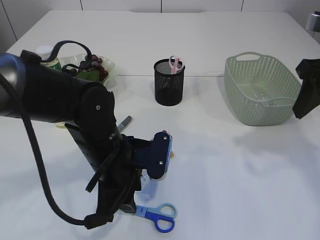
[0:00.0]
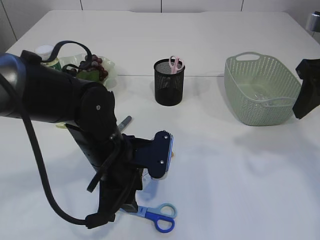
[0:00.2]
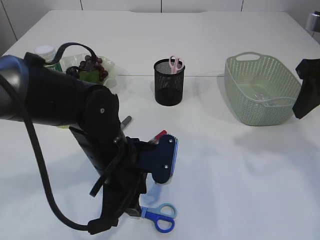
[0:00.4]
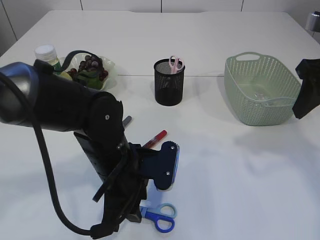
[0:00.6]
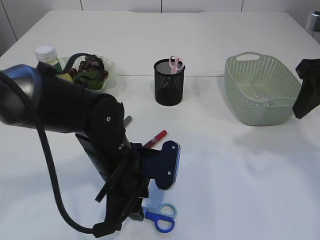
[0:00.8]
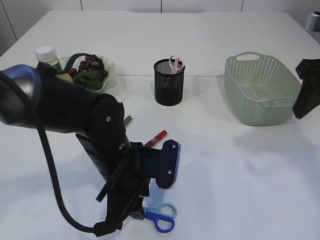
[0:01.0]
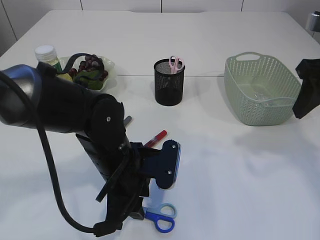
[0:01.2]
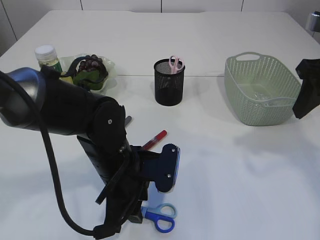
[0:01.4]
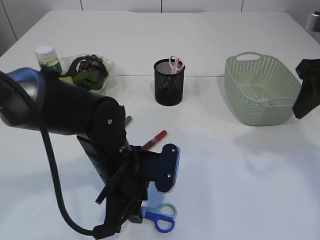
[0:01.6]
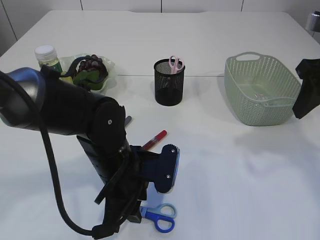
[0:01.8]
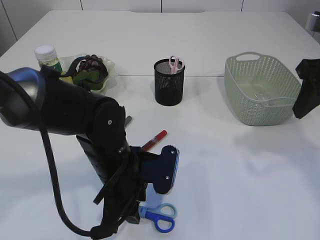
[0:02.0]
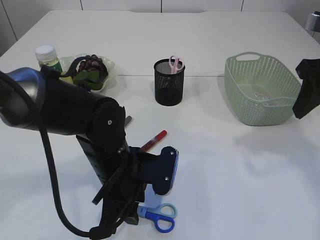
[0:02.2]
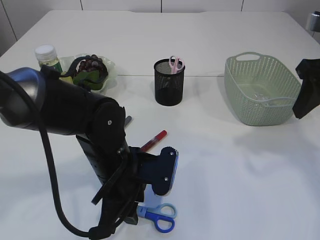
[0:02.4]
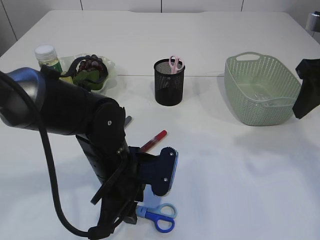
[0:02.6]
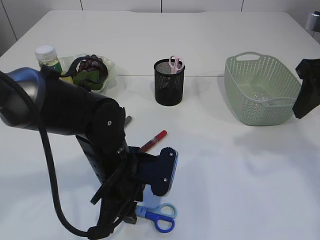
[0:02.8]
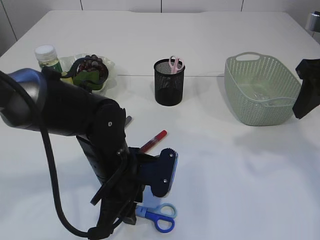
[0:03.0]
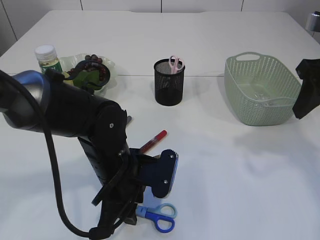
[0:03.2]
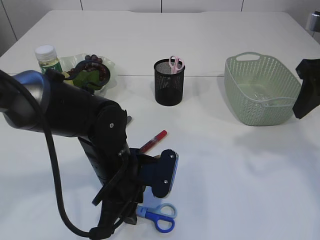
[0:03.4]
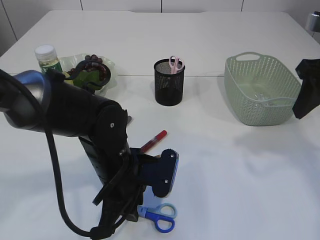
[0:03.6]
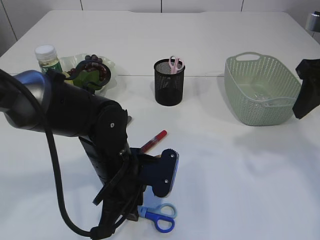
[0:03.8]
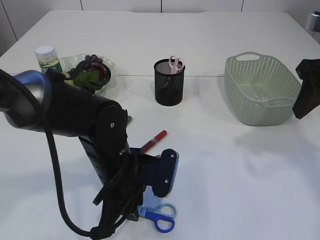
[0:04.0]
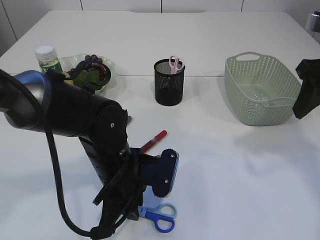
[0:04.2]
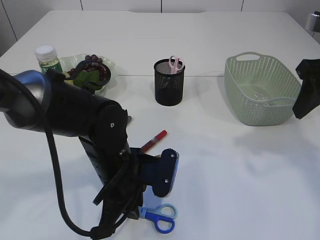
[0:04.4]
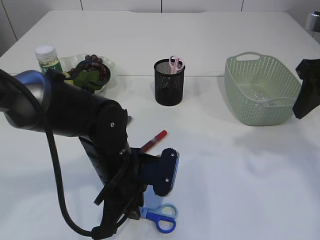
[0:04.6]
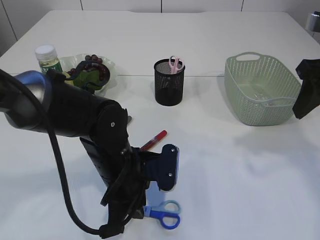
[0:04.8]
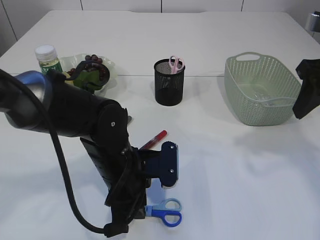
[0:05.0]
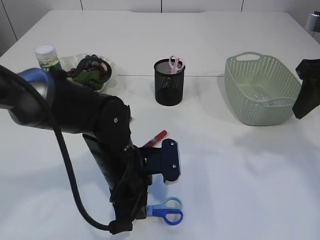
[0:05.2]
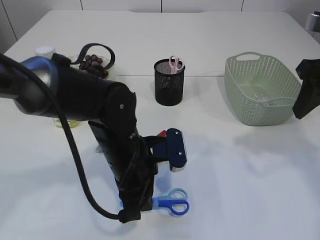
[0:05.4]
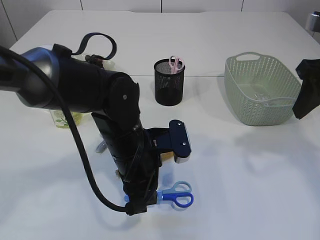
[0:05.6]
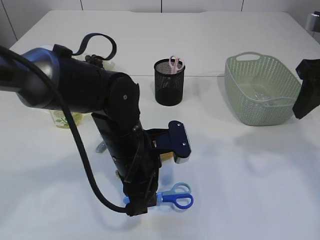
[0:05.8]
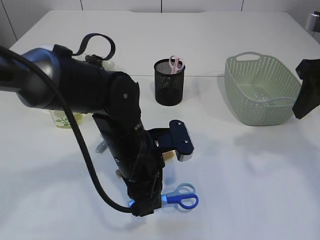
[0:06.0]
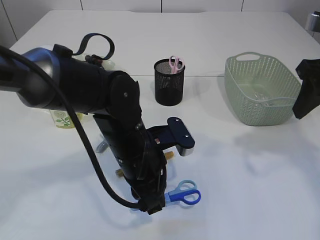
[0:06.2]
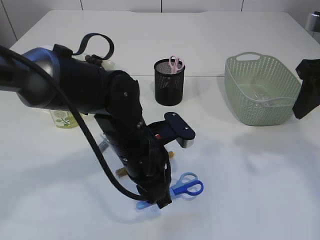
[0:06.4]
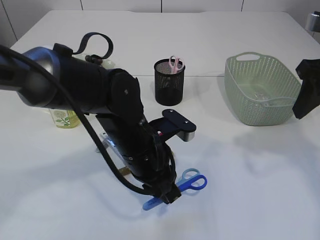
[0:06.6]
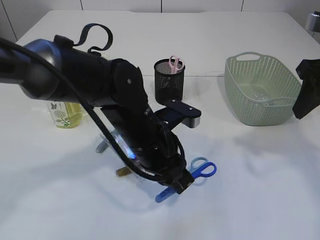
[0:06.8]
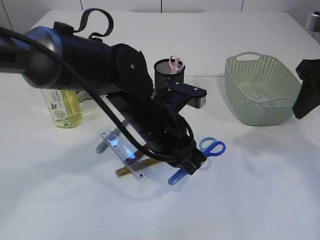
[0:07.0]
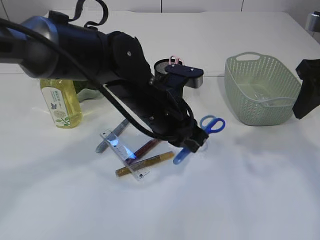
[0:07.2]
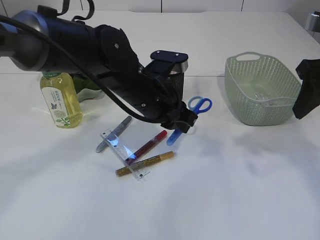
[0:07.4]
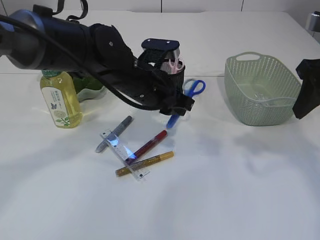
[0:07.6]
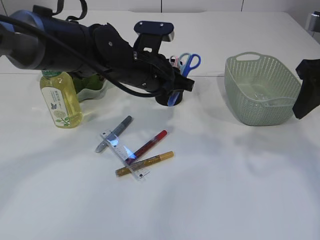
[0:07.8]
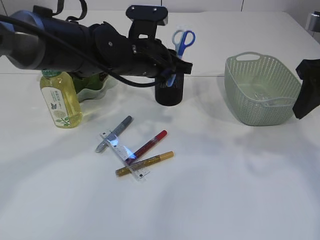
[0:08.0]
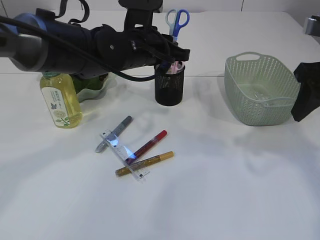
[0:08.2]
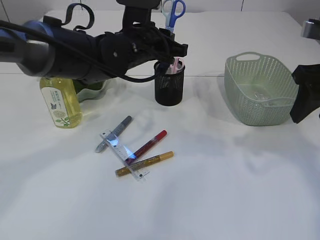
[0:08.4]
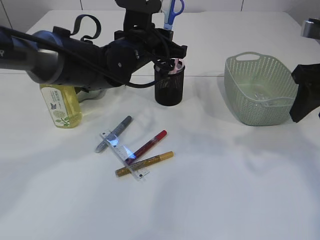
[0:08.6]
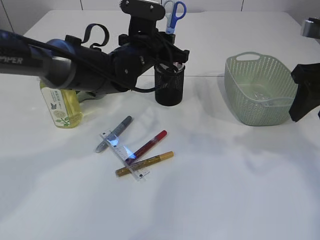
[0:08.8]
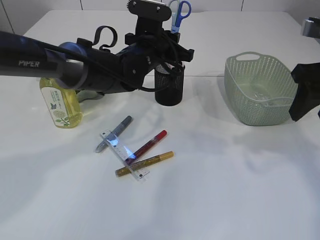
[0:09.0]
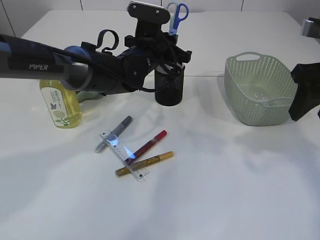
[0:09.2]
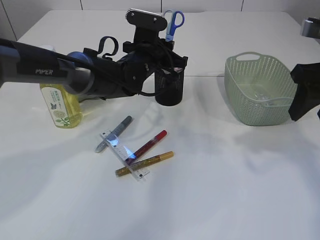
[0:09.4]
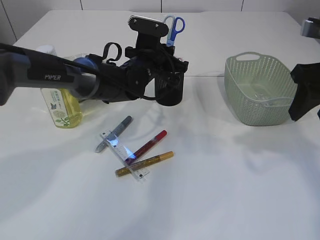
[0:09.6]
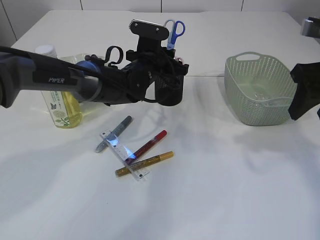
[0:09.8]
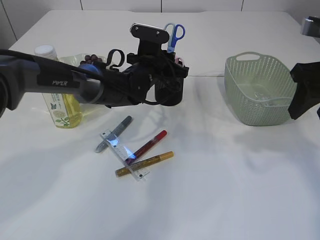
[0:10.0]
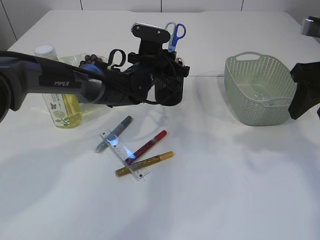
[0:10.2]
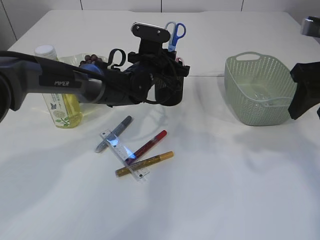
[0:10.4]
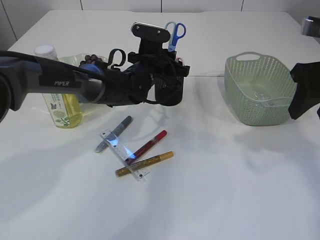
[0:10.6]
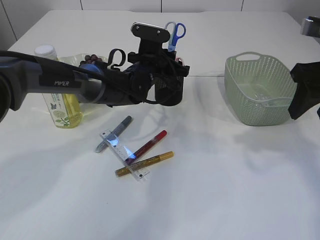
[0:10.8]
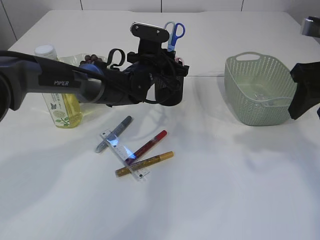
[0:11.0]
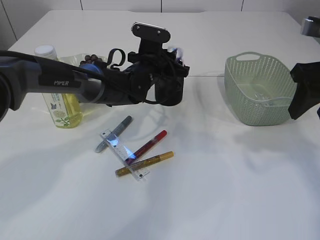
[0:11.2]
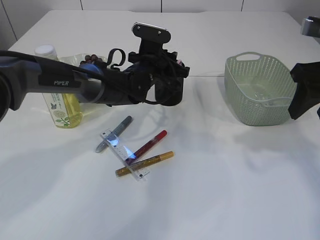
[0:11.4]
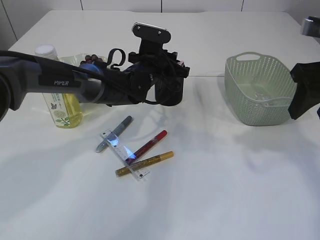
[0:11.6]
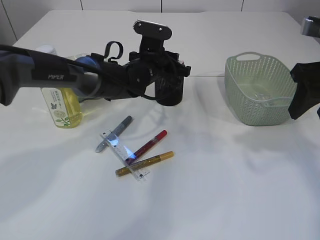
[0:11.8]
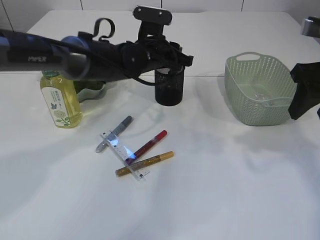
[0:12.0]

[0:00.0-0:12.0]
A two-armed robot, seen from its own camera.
Step, 0:00.0 to 0:07.0: pick up the blue scissors.
0:00.0 to 0:01.6: The grippers make only small movements.
0:01.6 to 0:04.4: The two grippers keep their place.
0:06.0 to 0:07.6: The left gripper goes some 10 cm forward and upward.
0:07.6 to 0:09.0: The left gripper goes about 10 cm forward.
0:09.0 to 0:10.4: The left gripper heads downward, covering roughly 5 cm.
0:10.4 to 0:12.0: There are only small adjustments of the grippers.

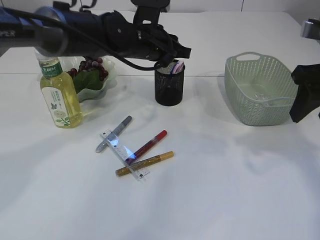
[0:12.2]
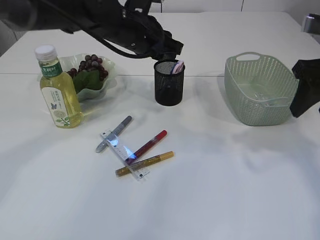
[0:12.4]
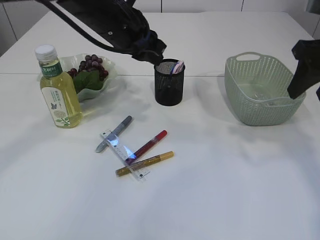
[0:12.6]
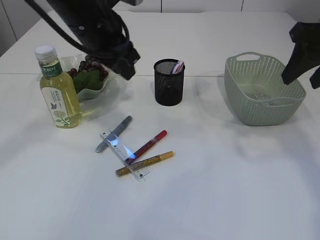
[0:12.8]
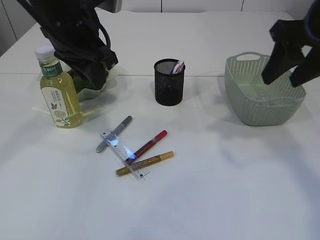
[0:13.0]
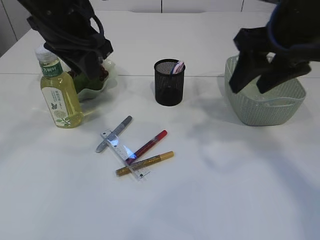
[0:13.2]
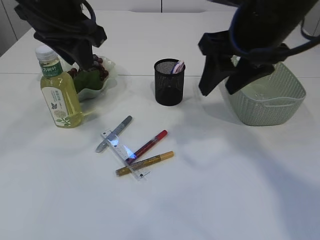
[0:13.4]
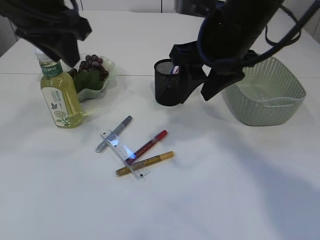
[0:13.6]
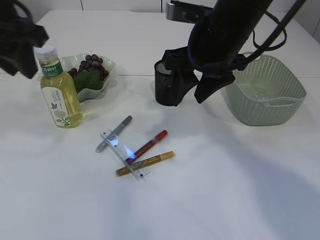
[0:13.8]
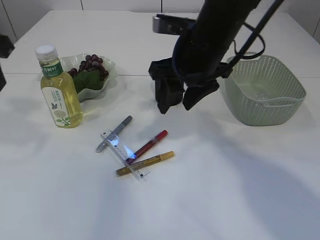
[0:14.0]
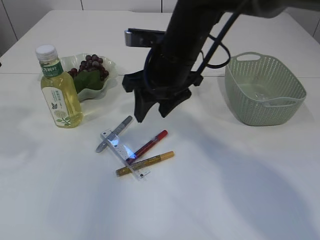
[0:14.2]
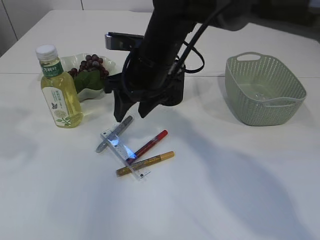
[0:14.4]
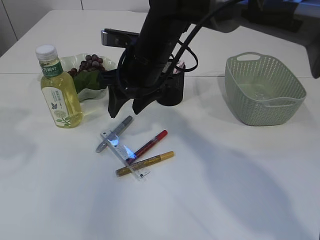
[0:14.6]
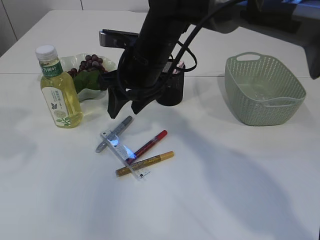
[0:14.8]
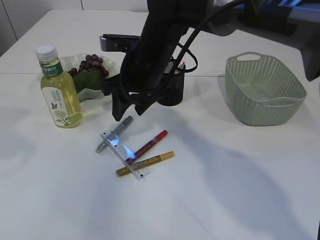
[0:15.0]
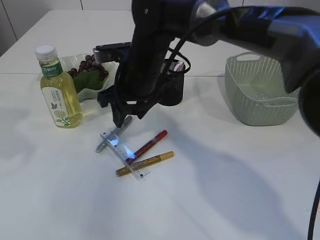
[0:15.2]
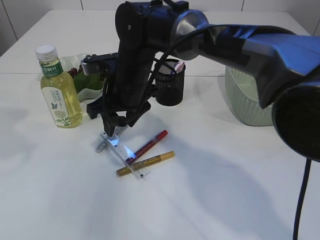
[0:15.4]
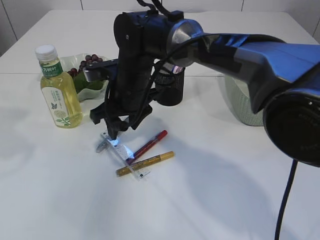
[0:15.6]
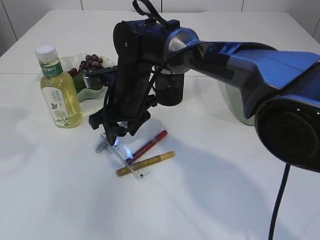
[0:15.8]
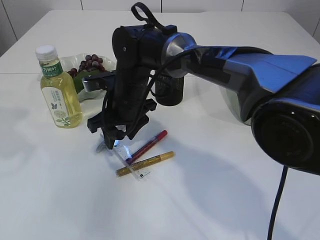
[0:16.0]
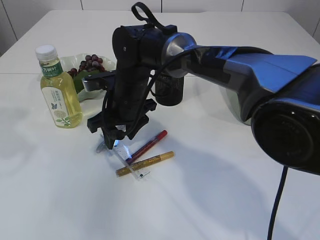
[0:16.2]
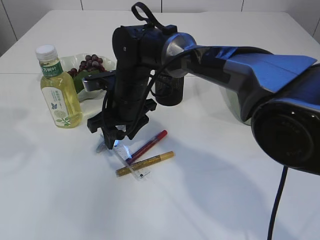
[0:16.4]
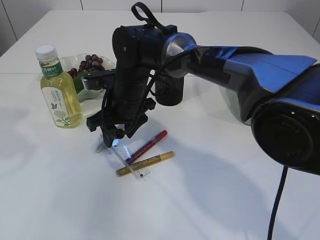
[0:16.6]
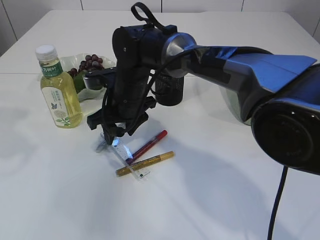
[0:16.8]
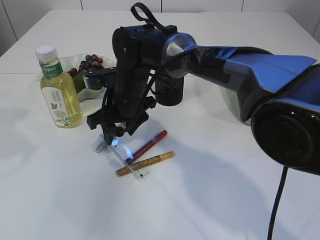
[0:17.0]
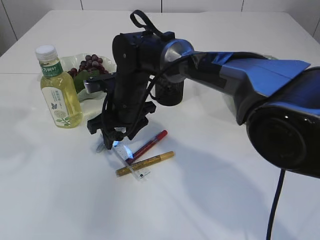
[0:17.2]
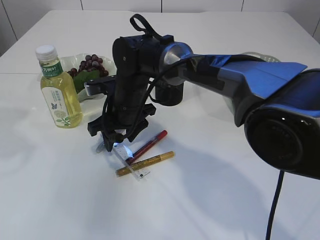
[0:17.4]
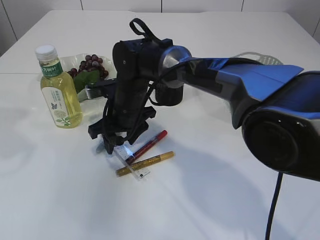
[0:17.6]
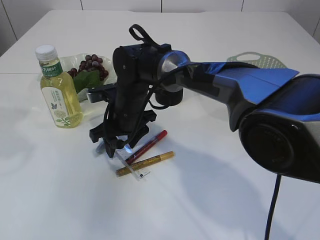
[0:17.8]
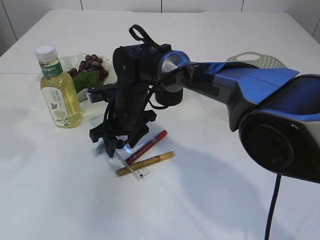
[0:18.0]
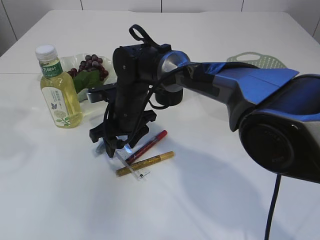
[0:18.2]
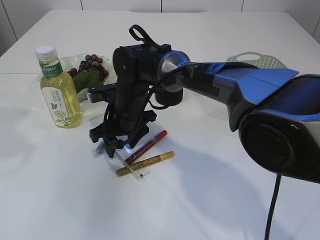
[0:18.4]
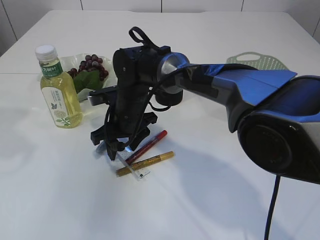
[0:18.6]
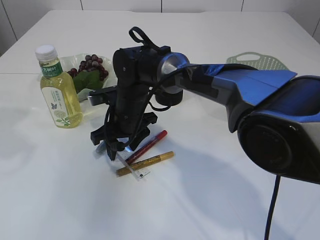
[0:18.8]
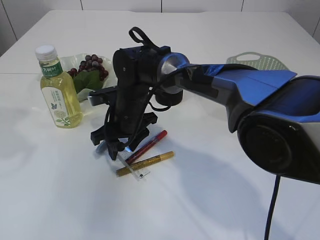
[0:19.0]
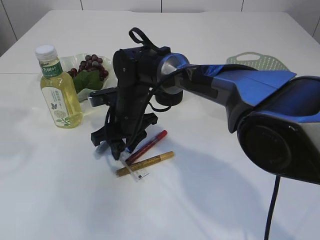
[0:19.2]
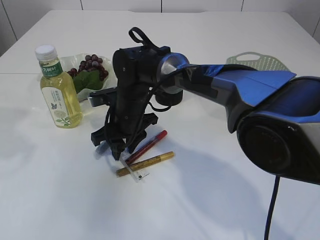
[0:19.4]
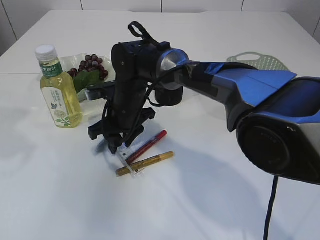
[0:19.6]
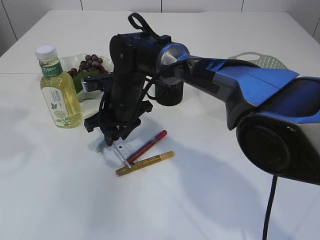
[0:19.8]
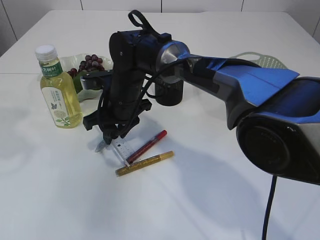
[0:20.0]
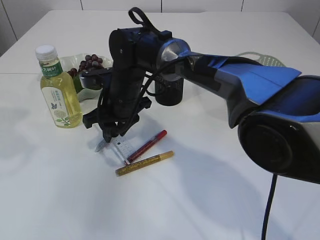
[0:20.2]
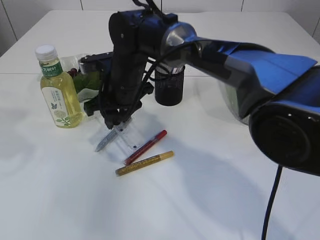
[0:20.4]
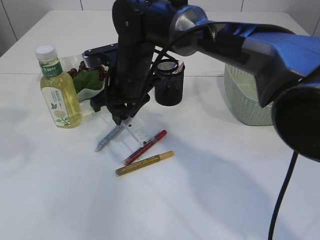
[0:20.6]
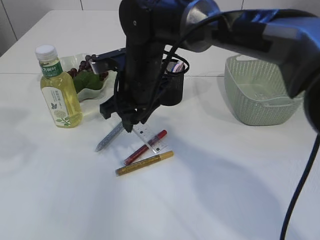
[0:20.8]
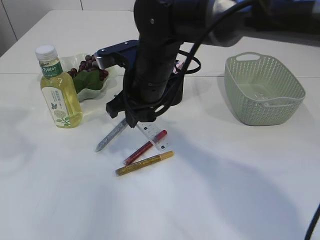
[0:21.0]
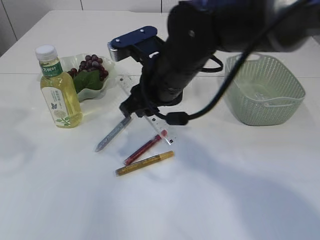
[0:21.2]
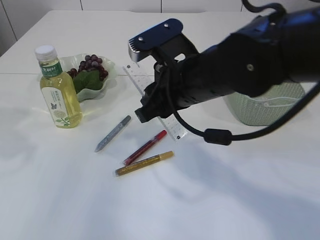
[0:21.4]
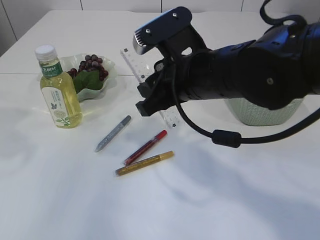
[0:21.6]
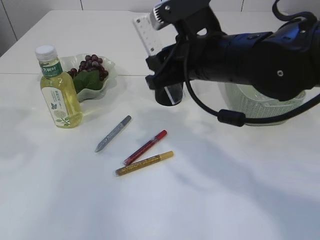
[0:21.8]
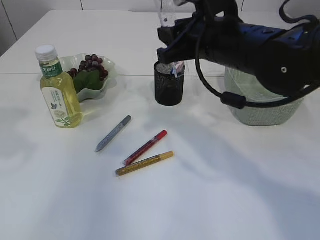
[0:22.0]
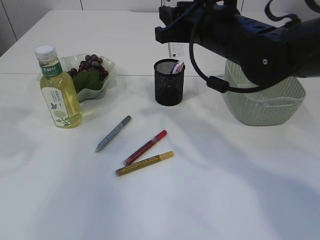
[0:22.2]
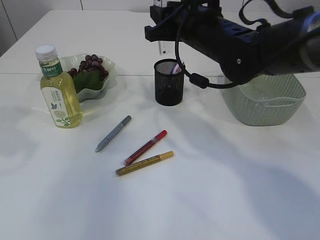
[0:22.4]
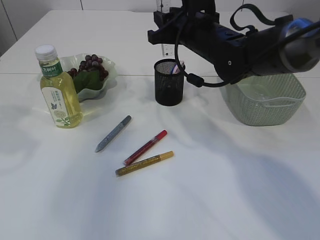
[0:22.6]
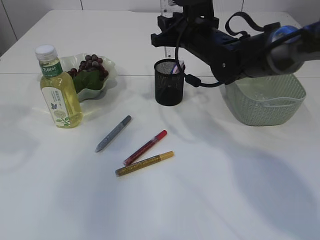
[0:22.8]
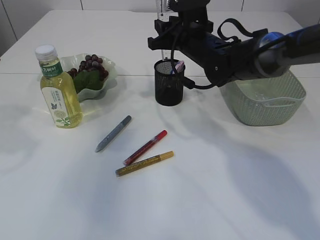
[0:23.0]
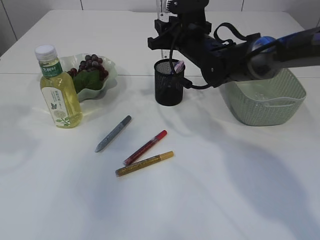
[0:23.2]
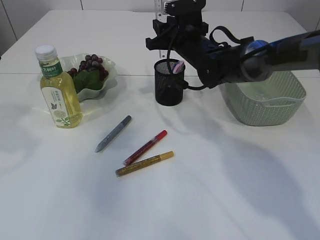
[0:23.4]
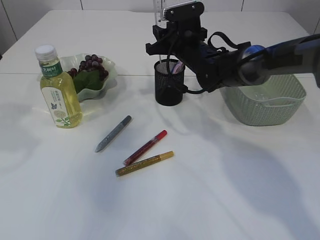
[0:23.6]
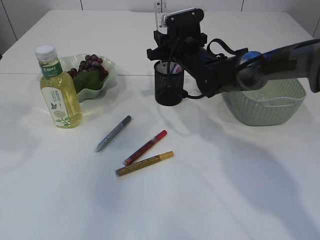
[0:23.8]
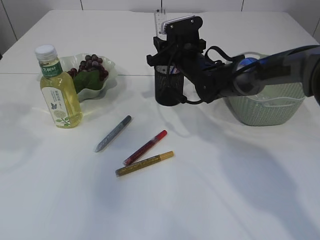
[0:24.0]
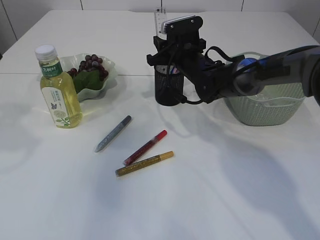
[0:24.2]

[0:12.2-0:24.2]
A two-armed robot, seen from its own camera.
Step, 0:12.8 to 0:20.8: pick up the ruler.
0:12.2 to 0:13.8: The right gripper goes approximately 15 cm to the left. Meanwhile the left gripper travels to the left, upward and backward by some 25 cm.
0:13.8 to 0:15.2: The left gripper heads to the left, covering roughly 5 cm, while the right gripper shifts about 15 cm to the left, downward and forward.
0:15.2 to 0:16.6: The right gripper shifts about 5 cm downward.
0:16.6 to 0:18.2: The grippers stay close to where they were, moving slightly.
0:18.2 to 0:19.8: The right gripper closes its fingers.
0:19.8 to 0:21.2: The right gripper travels upward, to the right and backward by some 15 cm.
0:21.2 to 0:22.6: The right gripper heads forward and to the right, covering about 10 cm.
0:22.6 to 0:24.2: The right gripper moves downward and forward, roughly 10 cm.
